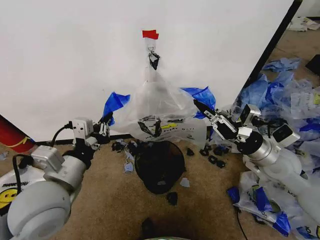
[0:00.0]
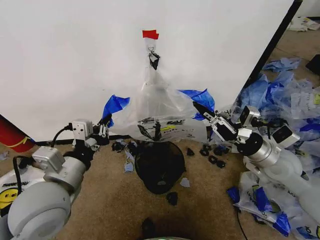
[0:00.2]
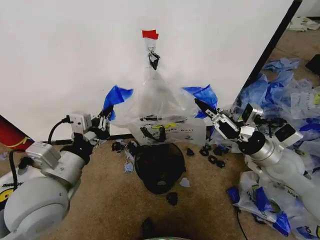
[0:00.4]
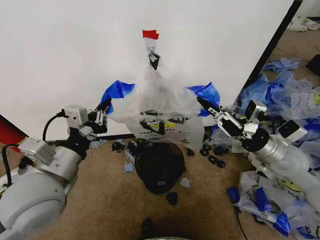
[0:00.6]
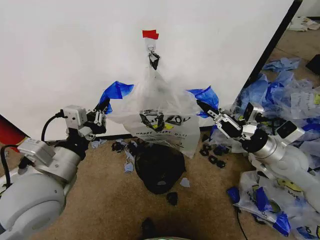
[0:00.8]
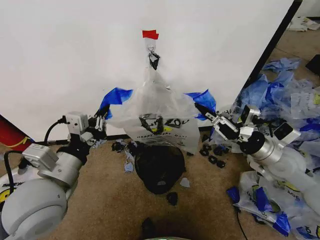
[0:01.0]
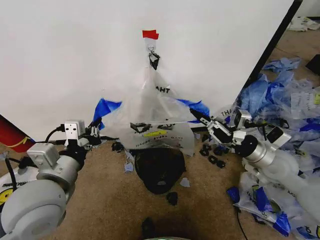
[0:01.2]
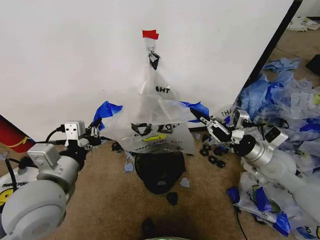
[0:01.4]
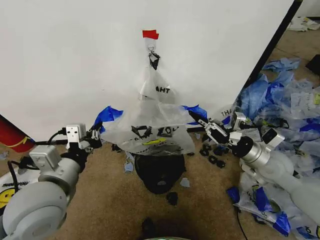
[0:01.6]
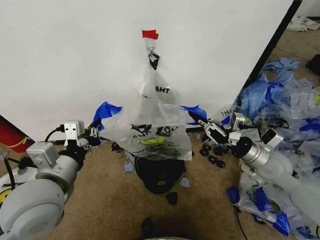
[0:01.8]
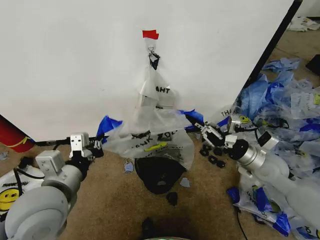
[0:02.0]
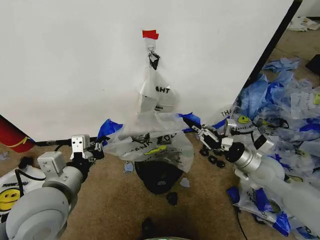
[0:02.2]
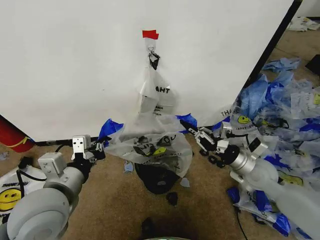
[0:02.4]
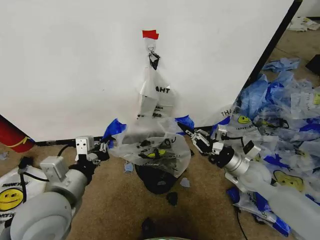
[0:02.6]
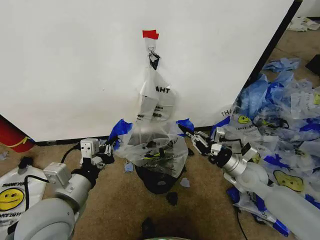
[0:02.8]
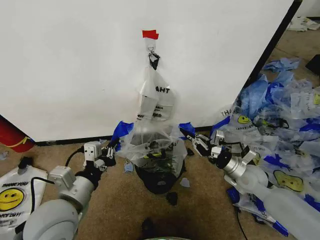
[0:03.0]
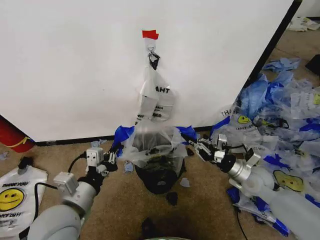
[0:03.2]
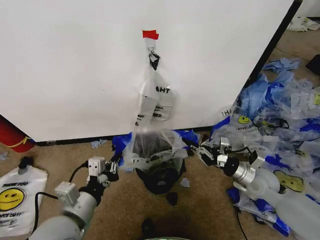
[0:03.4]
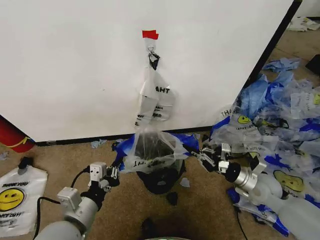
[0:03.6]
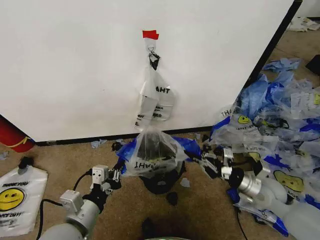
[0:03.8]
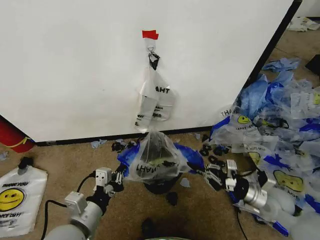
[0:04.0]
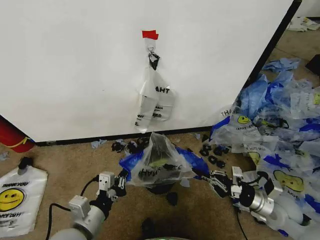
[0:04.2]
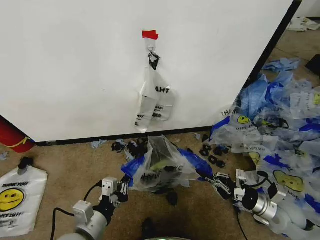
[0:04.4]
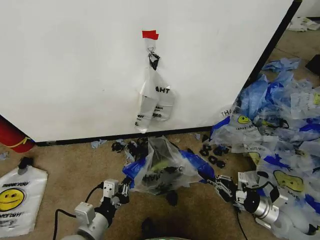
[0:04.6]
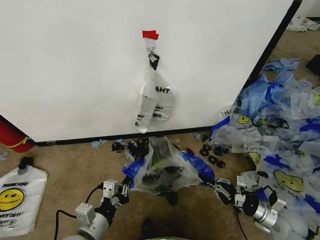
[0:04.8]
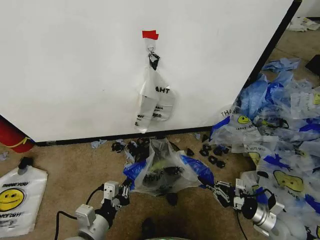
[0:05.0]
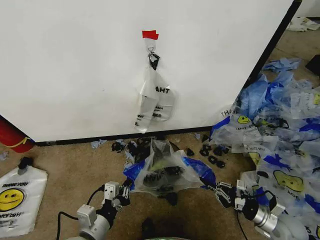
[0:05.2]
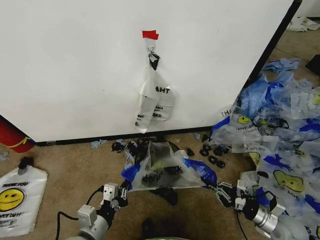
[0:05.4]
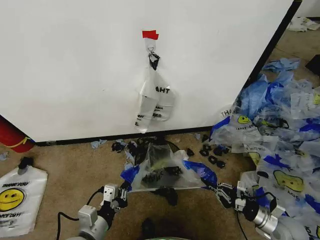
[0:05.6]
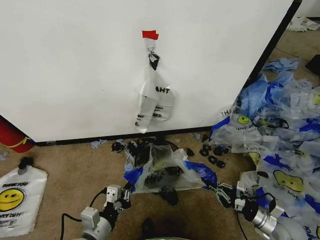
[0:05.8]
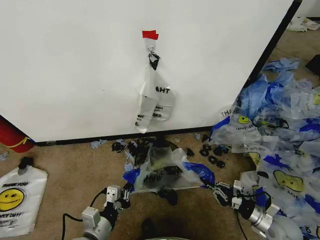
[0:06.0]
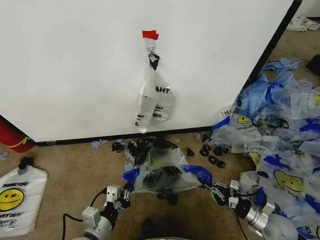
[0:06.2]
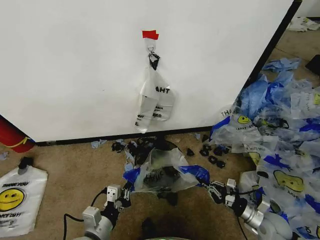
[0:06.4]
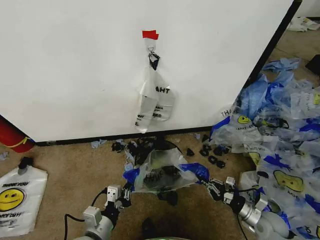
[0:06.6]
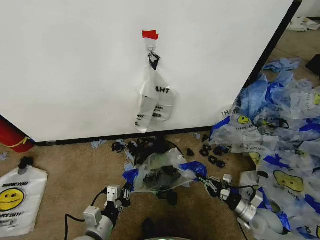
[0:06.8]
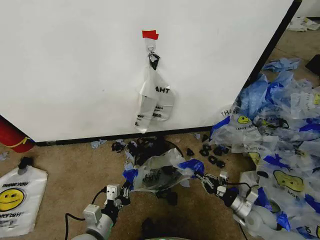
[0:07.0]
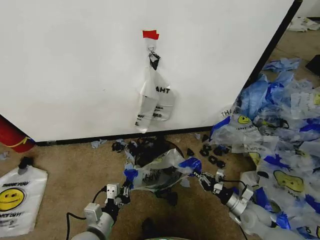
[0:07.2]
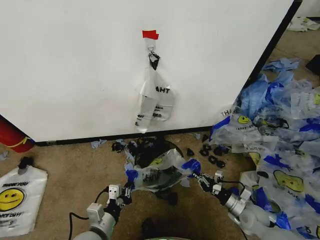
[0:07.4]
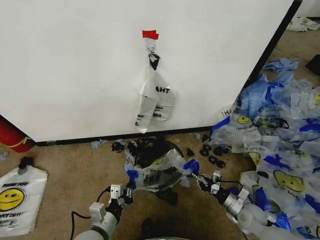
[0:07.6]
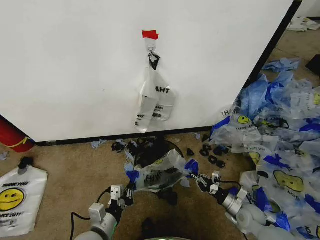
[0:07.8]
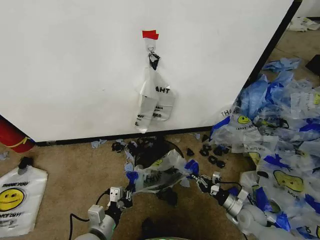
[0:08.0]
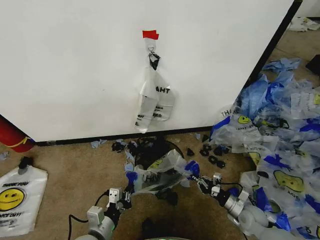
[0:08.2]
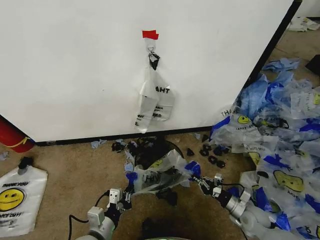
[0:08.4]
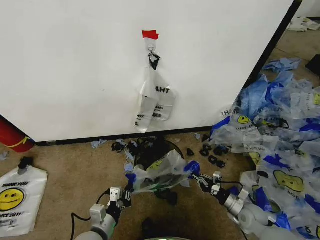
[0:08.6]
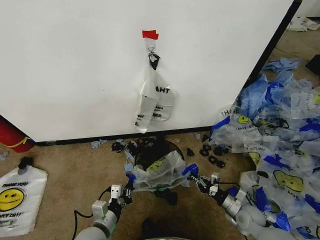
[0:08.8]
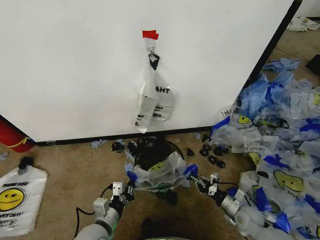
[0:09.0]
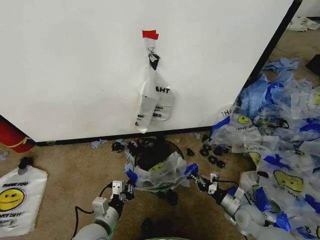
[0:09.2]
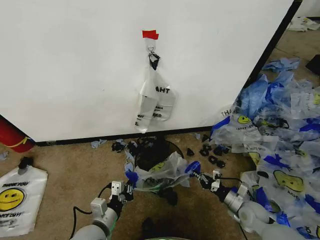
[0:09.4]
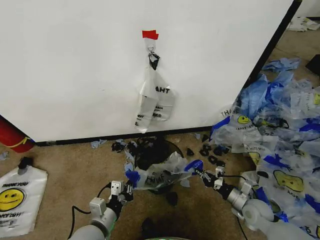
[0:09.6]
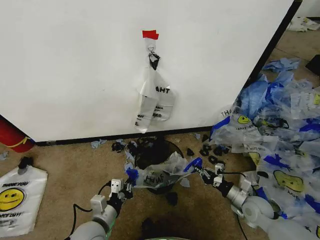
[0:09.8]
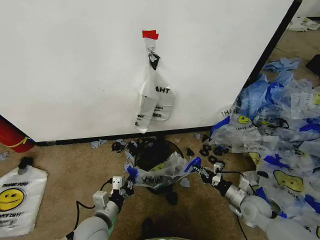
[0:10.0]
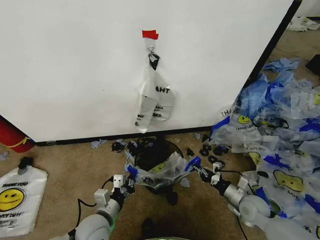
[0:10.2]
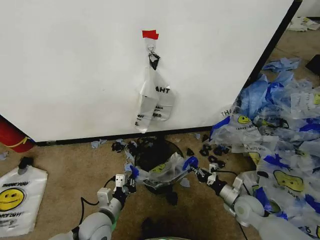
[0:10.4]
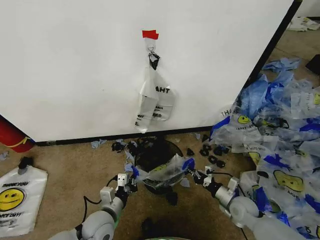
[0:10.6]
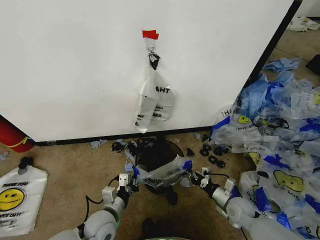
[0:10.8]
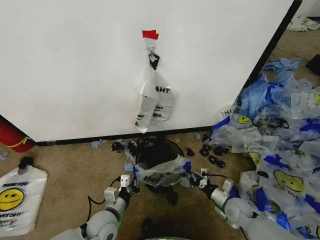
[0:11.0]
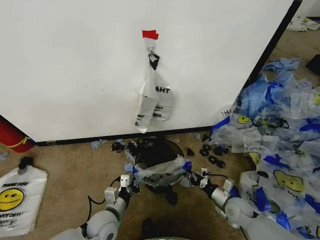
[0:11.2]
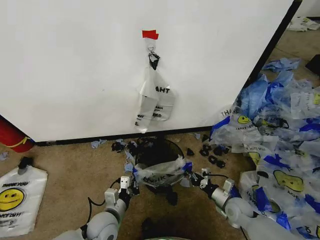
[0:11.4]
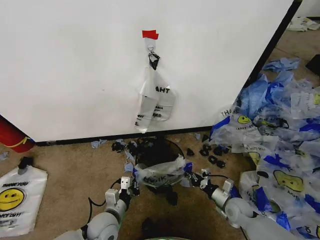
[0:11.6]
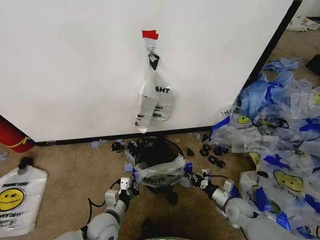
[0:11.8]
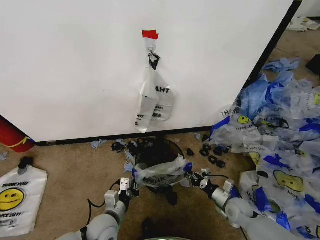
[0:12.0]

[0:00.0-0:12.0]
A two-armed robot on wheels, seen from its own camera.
Task of the whole recording: Pick up the garbage bag from the wall and place it over the trash bin.
0:00.0 to 0:01.6: The grippers stay close to where they were, moving slightly.
0:01.6 to 0:03.0: The right gripper moves downward, roughly 5 cm.
0:03.0 to 0:04.4: The left gripper goes about 10 cm downward. Meanwhile the right gripper is displaced to the right, downward and backward by roughly 10 cm.
0:04.4 to 0:06.0: The right gripper travels backward and downward by approximately 10 cm; the left gripper travels downward by roughly 5 cm.
0:06.0 to 0:07.6: The right gripper heads downward, to the left and forward, covering approximately 10 cm.
0:07.6 to 0:09.0: There are only small adjustments of the grippers.
0:09.0 to 0:10.4: The right gripper shifts by approximately 5 cm.
0:10.4 to 0:12.0: The grippers stay close to where they were, moving slightly.

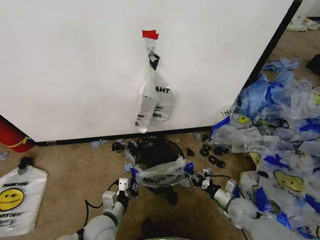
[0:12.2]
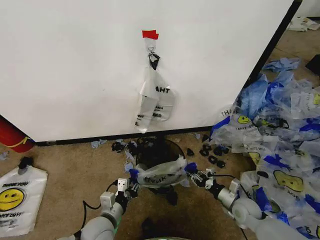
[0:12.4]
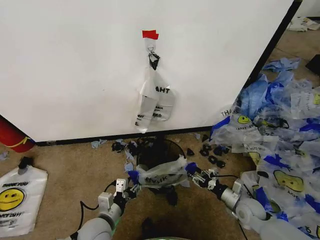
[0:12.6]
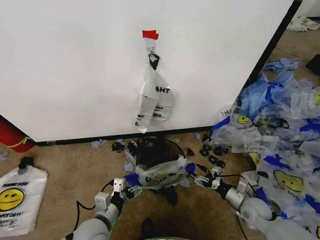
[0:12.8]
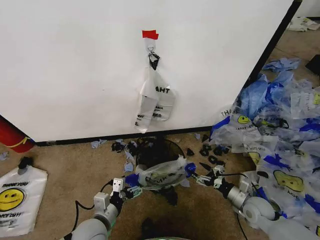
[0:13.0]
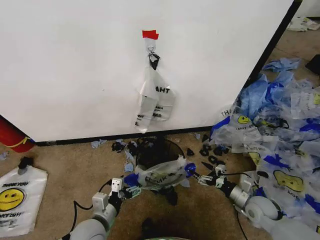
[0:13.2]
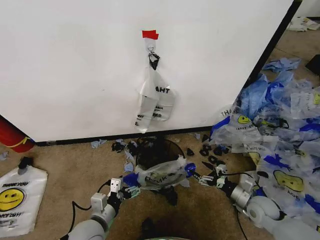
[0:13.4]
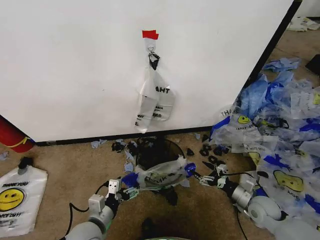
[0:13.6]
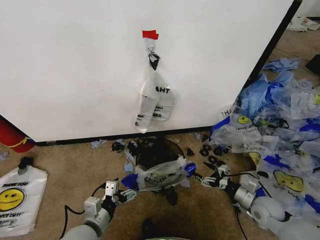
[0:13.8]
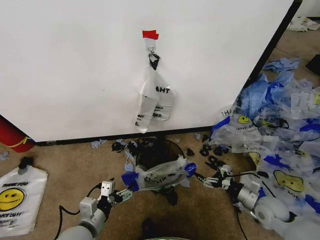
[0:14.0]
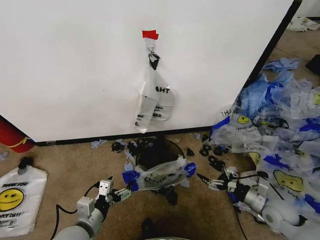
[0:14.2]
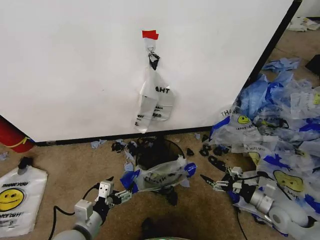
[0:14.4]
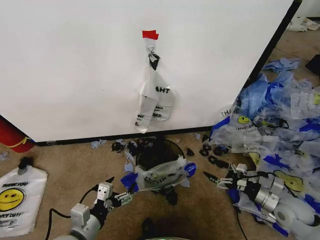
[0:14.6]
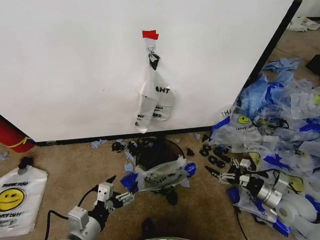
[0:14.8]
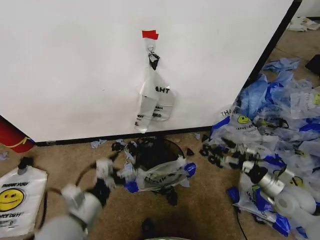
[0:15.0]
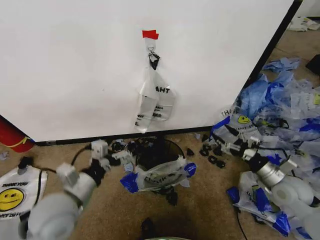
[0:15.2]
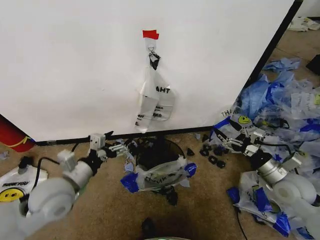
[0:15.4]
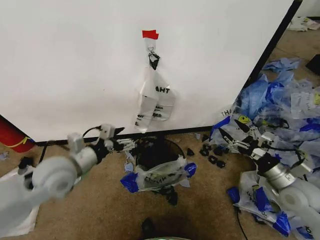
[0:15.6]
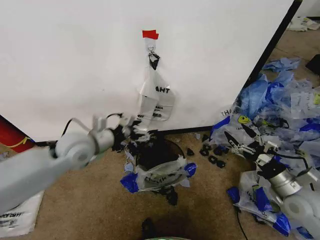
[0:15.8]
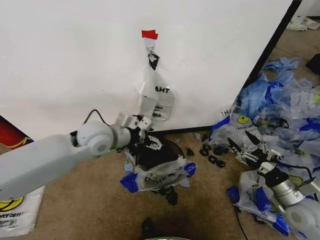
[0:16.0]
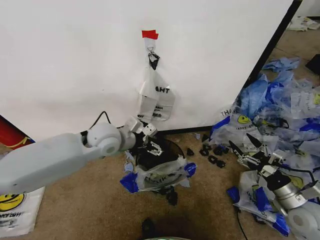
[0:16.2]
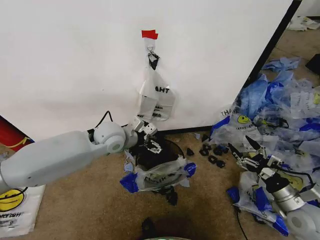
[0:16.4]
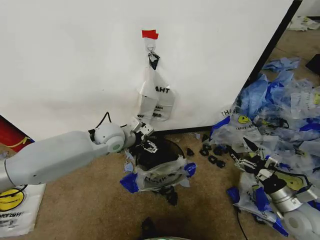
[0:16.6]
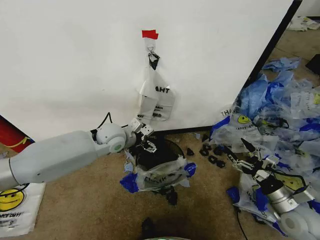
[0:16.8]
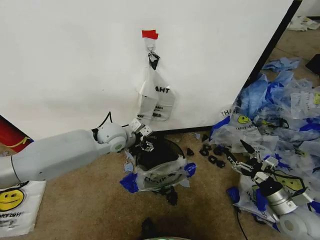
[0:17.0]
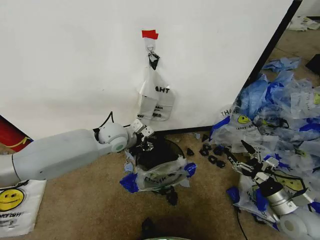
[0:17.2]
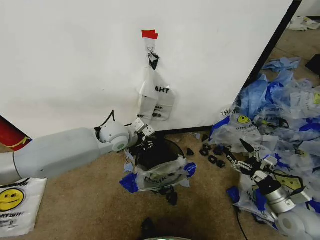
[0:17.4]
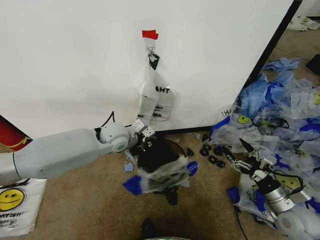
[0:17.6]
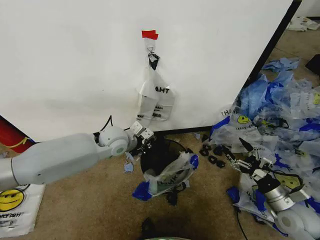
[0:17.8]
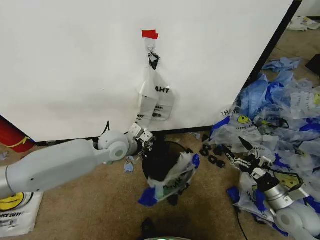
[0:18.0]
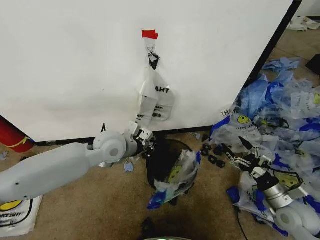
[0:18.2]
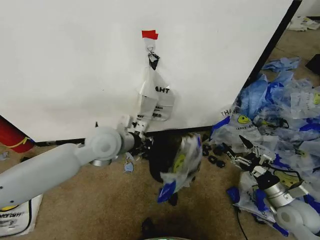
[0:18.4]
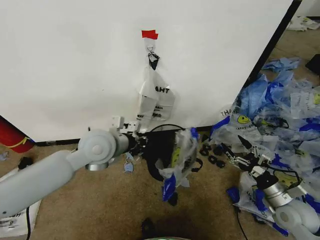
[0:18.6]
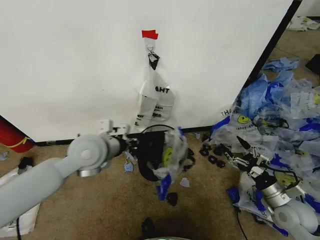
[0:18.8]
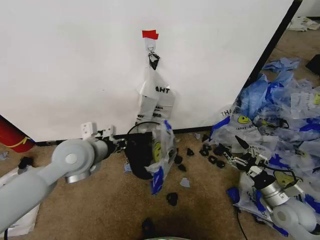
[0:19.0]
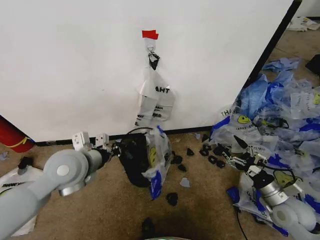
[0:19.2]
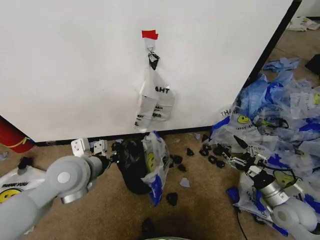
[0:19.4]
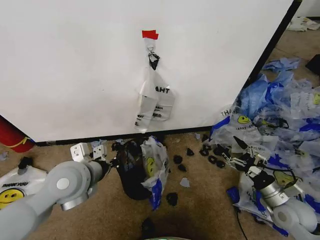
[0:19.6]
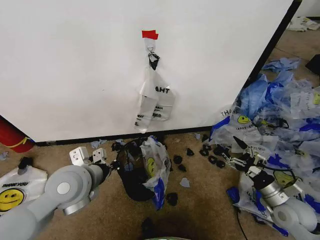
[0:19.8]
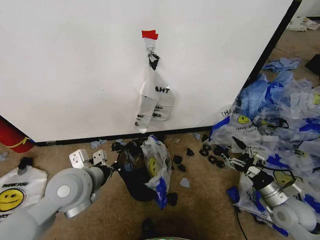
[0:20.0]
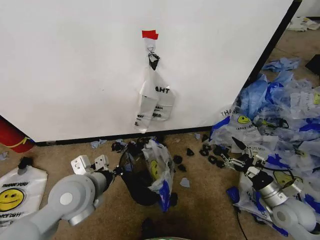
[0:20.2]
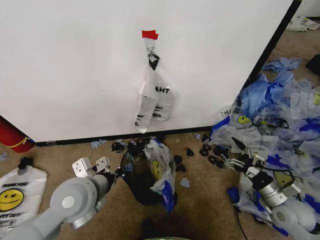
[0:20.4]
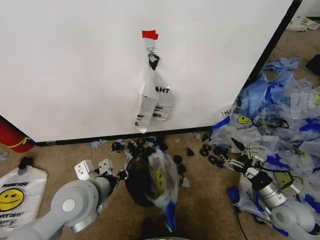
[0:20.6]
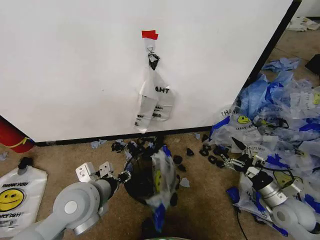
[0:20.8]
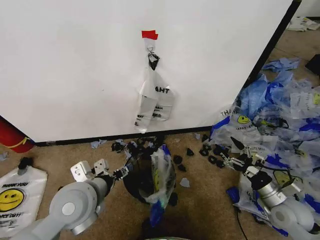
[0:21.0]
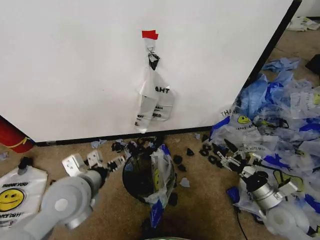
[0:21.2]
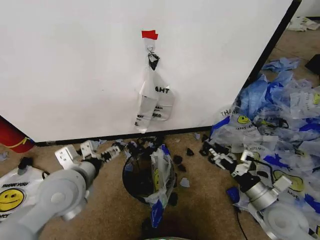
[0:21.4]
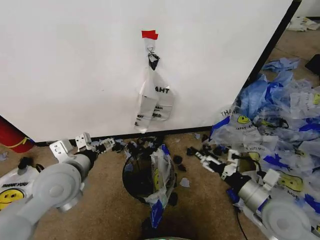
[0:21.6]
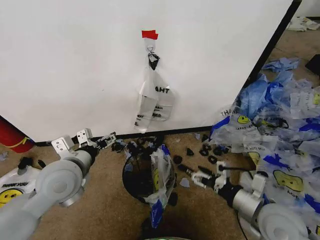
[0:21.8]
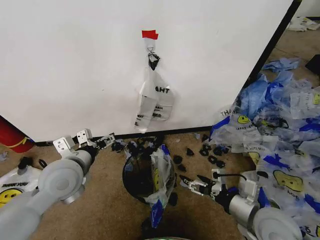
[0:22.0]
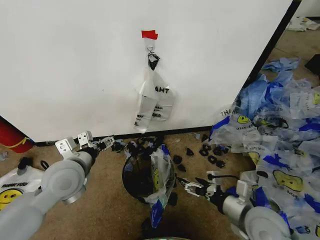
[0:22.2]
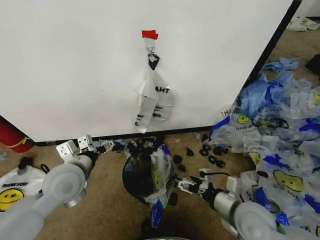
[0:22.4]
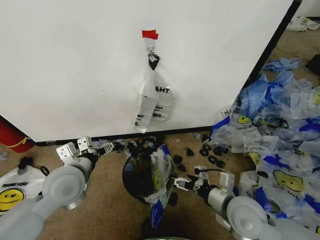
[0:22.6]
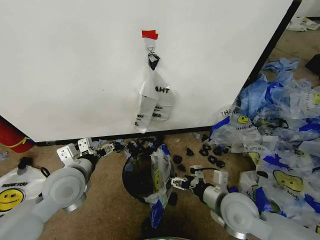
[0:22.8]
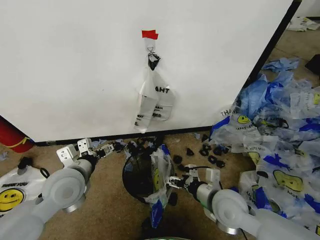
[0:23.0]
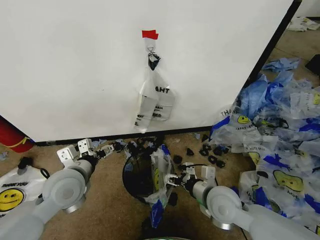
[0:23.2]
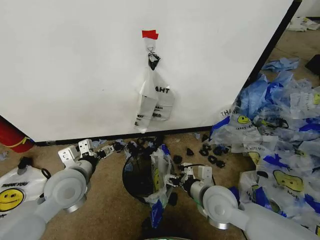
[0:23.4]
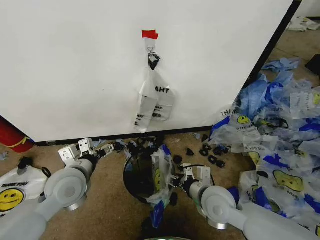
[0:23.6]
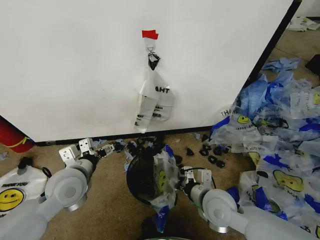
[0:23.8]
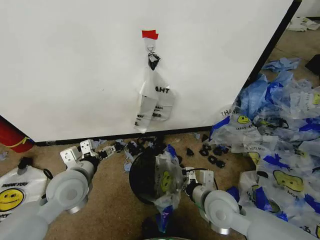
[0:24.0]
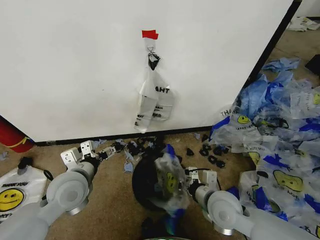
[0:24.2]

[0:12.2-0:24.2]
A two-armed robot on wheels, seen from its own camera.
Task of the whole recording: Pick up the garbage bag from the wall and place it over the trash bin.
0:12.2 to 0:13.8: The right gripper heads to the right and upward, covering approximately 10 cm, and opens its fingers; the left gripper travels upward by some 5 cm, and opens.
0:13.8 to 0:15.2: Both grippers travel together upward, approximately 10 cm.
0:15.2 to 0:16.6: The left gripper moves forward, about 20 cm; the right gripper is displaced backward by about 10 cm.
0:16.6 to 0:18.2: The left gripper shifts roughly 5 cm backward, and closes.
0:18.2 to 0:19.8: The left gripper goes approximately 15 cm backward and to the left.
0:19.8 to 0:21.2: The left gripper opens.
0:21.2 to 0:22.6: The right gripper shifts approximately 15 cm to the left. The left gripper shifts by some 5 cm.
0:22.6 to 0:24.2: The right gripper ends up approximately 5 cm from where it was, and closes its fingers.
